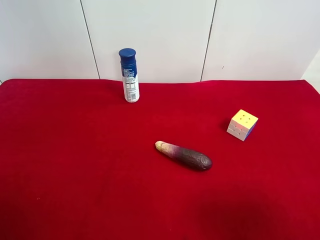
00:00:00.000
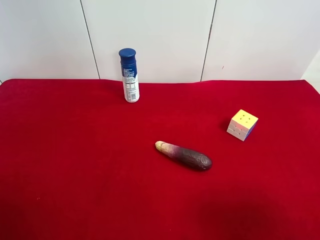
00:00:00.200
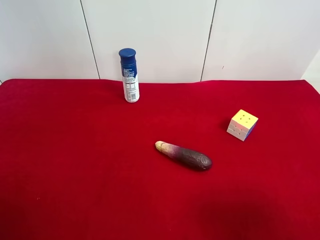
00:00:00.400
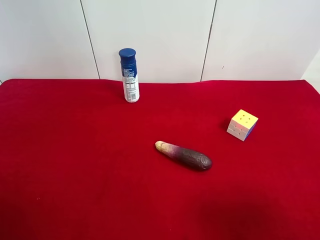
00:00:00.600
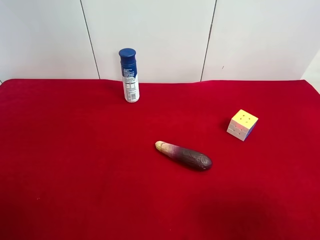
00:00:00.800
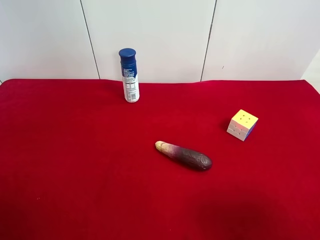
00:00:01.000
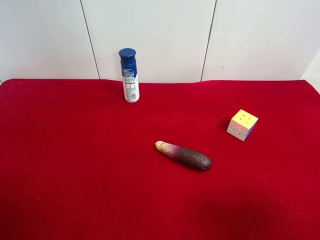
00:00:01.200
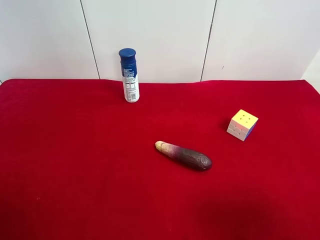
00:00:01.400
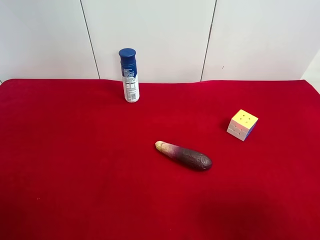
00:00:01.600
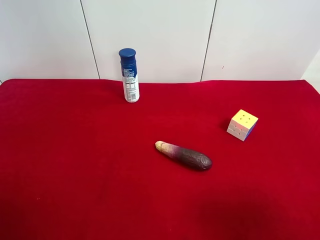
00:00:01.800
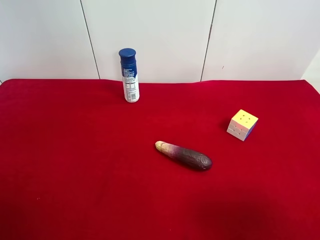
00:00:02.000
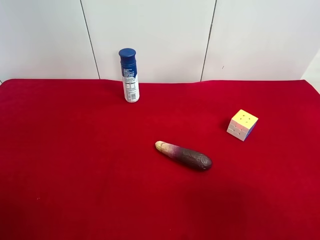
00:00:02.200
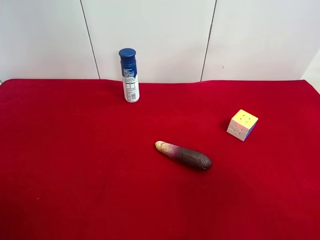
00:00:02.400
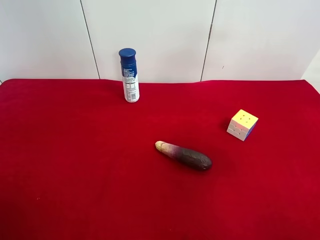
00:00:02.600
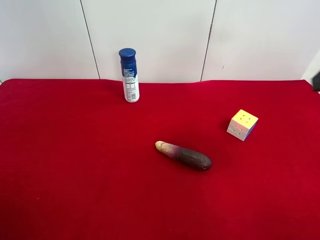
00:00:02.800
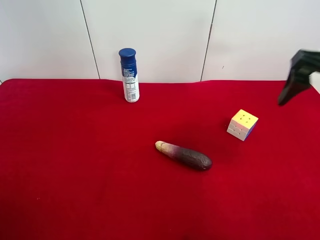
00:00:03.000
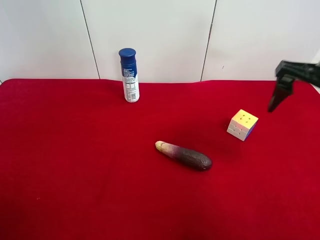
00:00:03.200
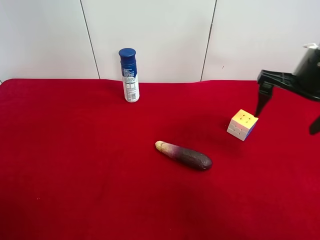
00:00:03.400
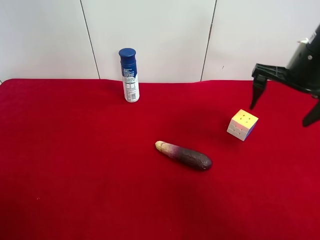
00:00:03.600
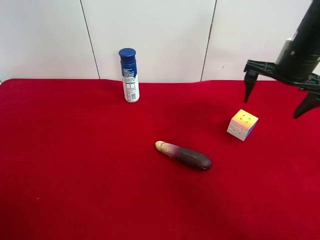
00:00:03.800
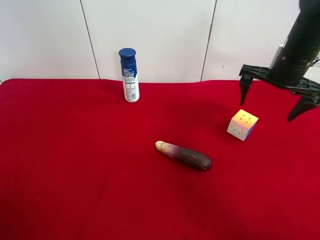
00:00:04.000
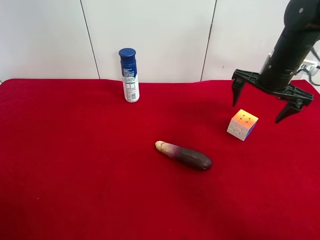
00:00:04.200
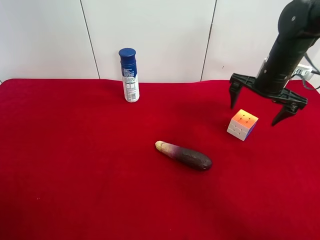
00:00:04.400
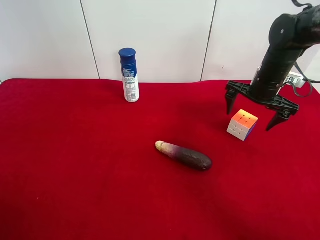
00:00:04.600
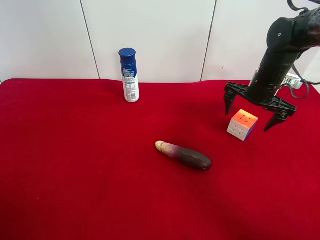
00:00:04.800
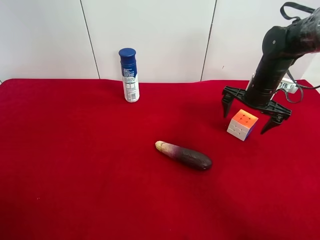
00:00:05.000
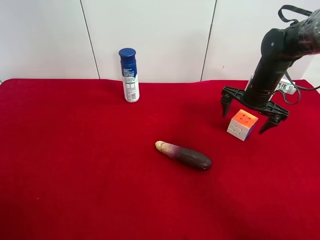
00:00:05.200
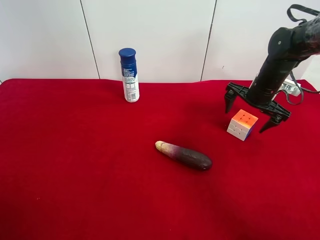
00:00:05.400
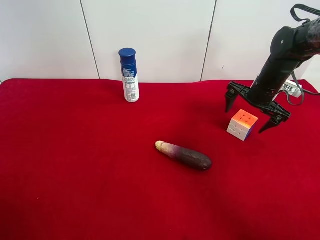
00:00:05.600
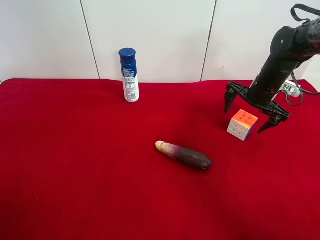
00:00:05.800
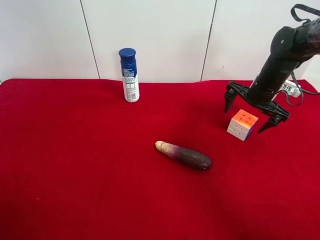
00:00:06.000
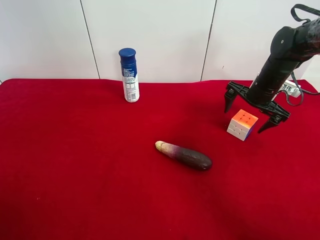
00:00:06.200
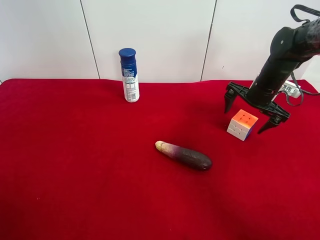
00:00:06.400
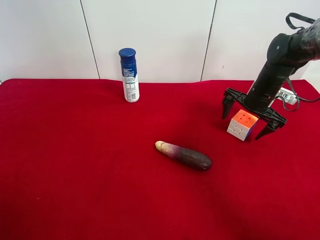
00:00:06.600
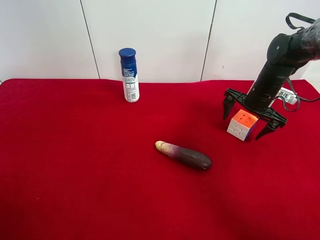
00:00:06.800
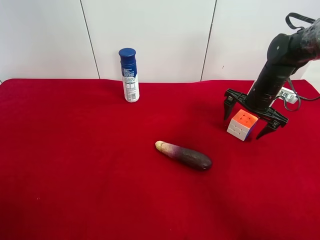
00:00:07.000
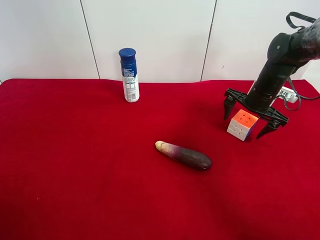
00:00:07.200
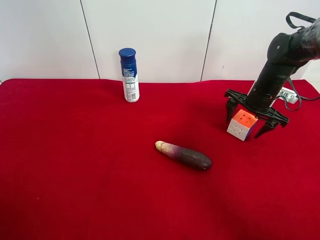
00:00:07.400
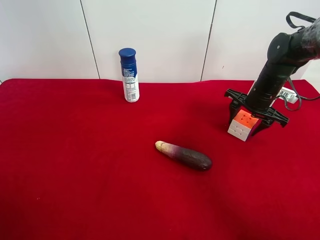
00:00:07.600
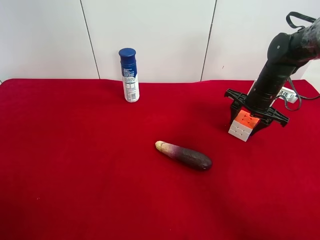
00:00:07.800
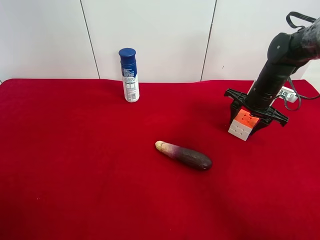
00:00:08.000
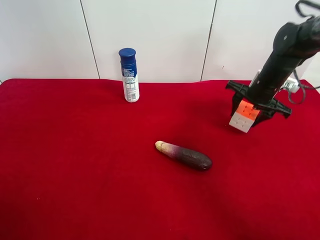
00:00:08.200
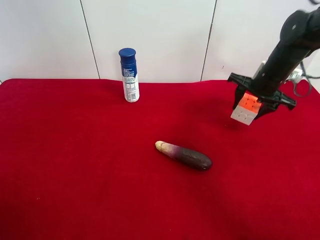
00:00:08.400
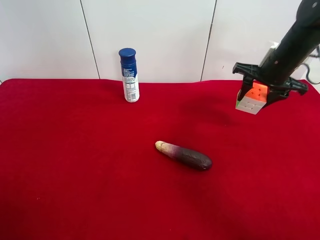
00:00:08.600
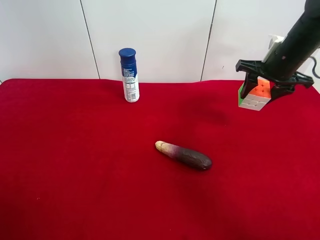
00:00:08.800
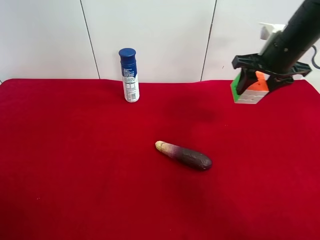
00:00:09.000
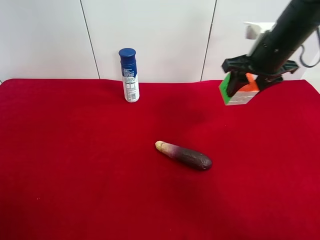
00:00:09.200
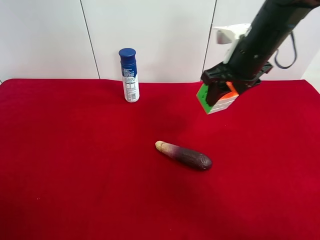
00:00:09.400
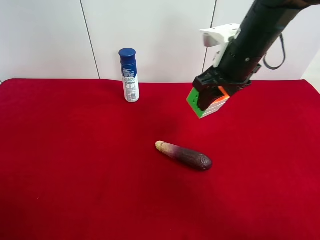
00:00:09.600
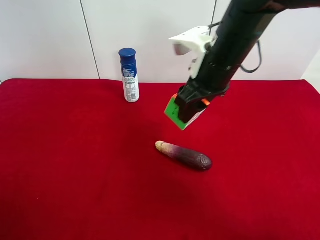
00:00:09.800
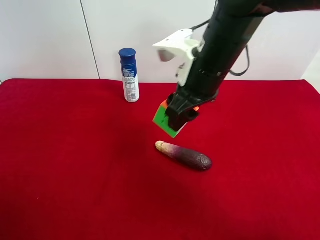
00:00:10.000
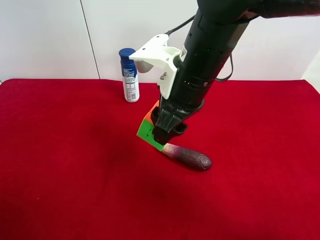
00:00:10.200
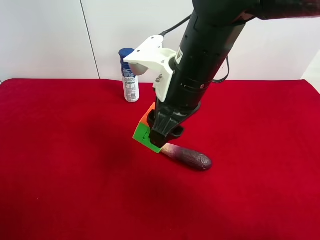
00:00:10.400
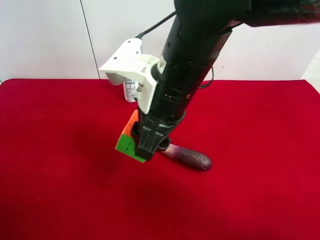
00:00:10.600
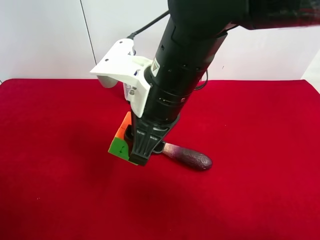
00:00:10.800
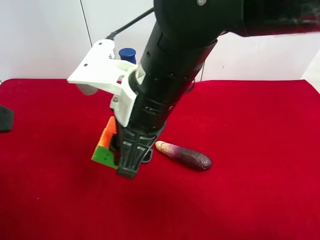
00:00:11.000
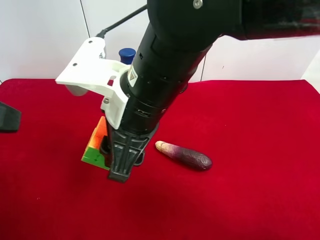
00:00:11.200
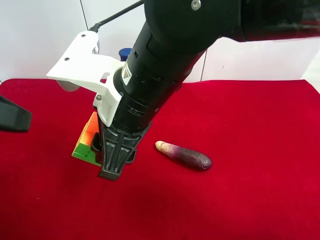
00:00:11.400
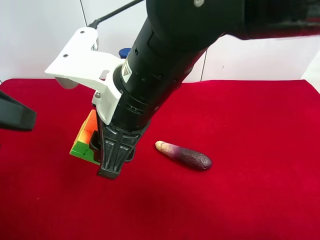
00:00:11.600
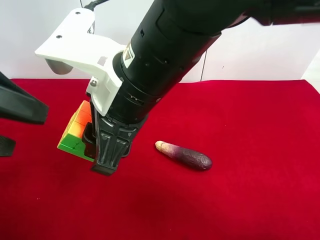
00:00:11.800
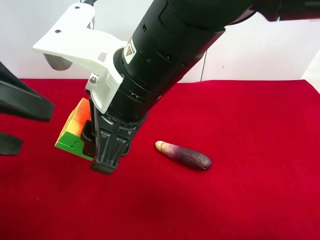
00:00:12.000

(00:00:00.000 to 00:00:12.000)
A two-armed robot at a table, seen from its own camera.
Task of the whole recording: use the right gripper to pick up the item and transfer it from the right gripper to the left gripper.
Step, 00:00:00.000 - 00:00:07.600: Use the right gripper to grab the Rubik's Cube on the right side of the table.
00:00:00.000 - 00:00:01.600: Both grippers stay about where they are.
00:00:01.600 - 00:00:03.000: The right gripper heads forward, covering about 20 cm.
00:00:03.000 - 00:00:04.400: The right gripper is displaced forward and downward by some 20 cm.
00:00:04.400 - 00:00:06.000: The right gripper ends up some 5 cm from where it was.
00:00:06.000 - 00:00:07.600: The right gripper closes its fingers.
00:00:07.600 - 00:00:09.000: The right gripper shifts approximately 15 cm upward.
00:00:09.000 - 00:00:10.400: The left gripper shifts some 5 cm upward. Meanwhile the right gripper moves to the left and backward, approximately 25 cm.
00:00:10.400 - 00:00:12.000: The right gripper goes approximately 10 cm backward and to the left; the left gripper goes some 10 cm forward.

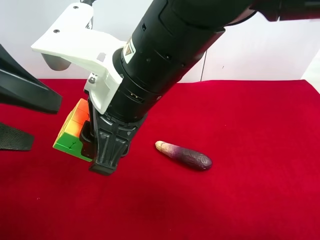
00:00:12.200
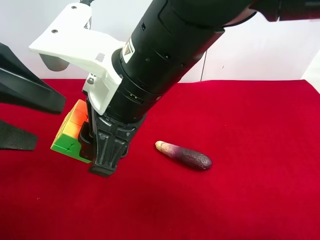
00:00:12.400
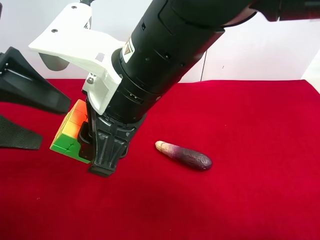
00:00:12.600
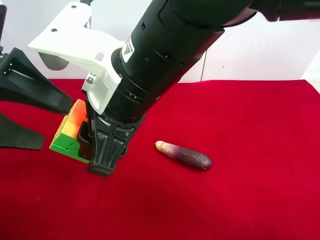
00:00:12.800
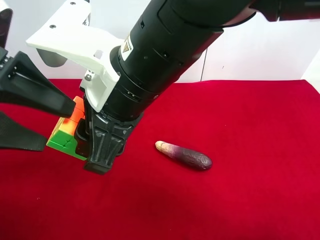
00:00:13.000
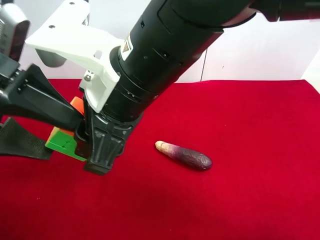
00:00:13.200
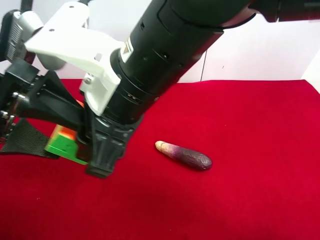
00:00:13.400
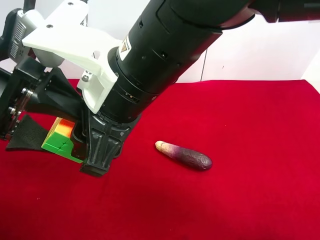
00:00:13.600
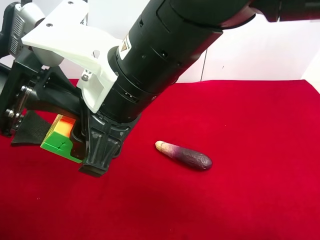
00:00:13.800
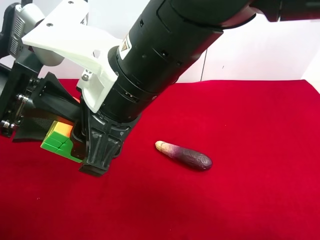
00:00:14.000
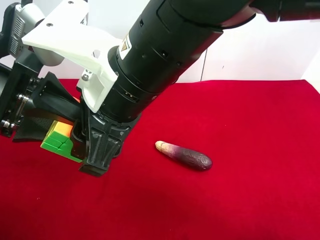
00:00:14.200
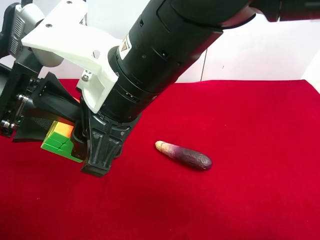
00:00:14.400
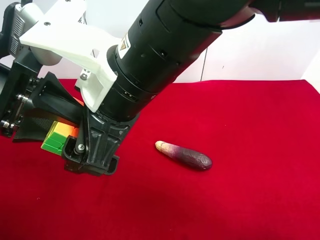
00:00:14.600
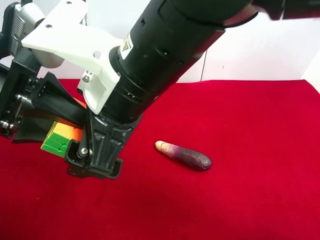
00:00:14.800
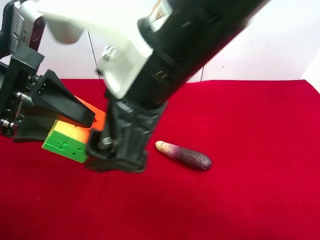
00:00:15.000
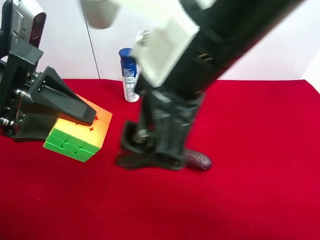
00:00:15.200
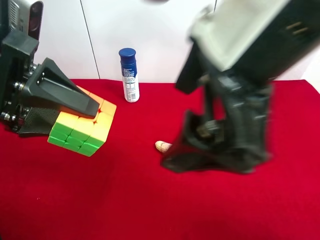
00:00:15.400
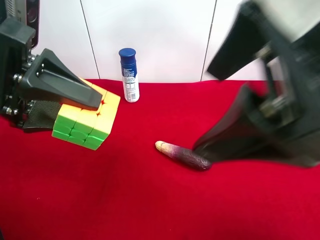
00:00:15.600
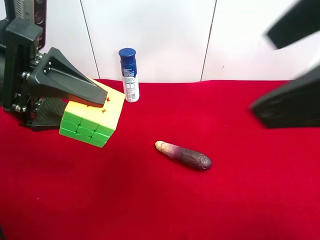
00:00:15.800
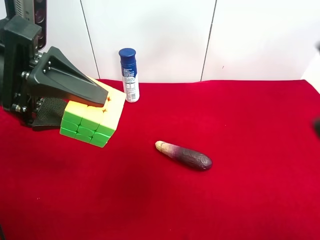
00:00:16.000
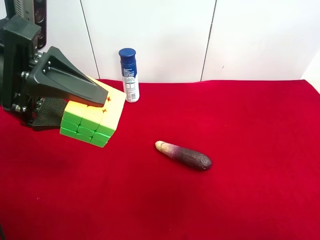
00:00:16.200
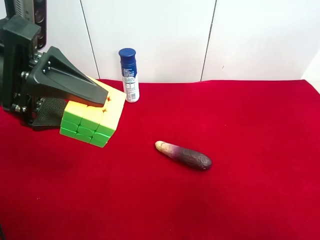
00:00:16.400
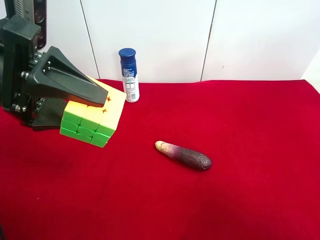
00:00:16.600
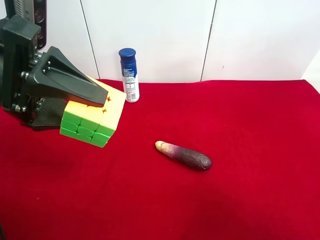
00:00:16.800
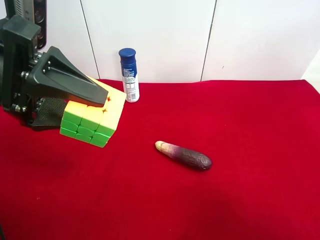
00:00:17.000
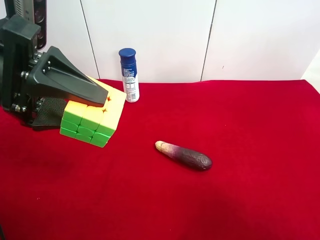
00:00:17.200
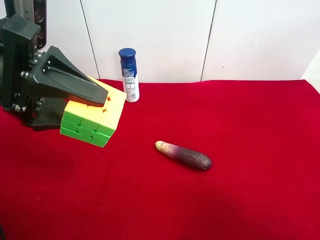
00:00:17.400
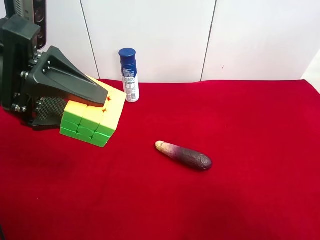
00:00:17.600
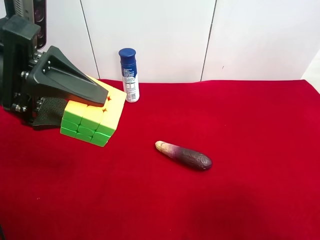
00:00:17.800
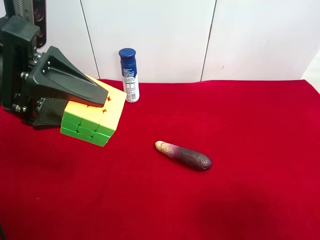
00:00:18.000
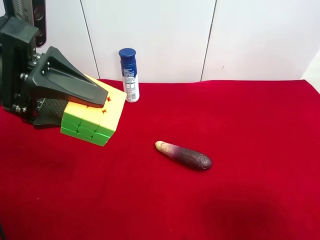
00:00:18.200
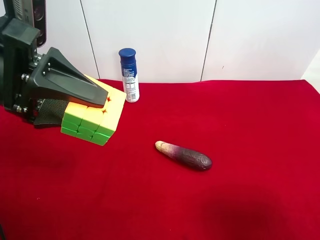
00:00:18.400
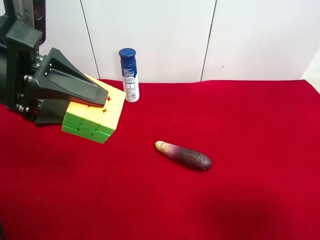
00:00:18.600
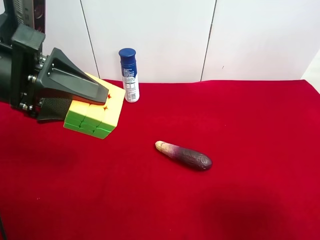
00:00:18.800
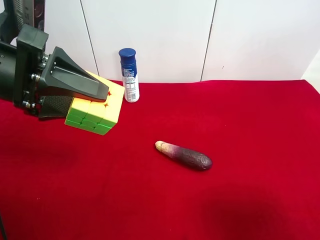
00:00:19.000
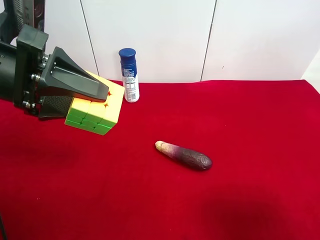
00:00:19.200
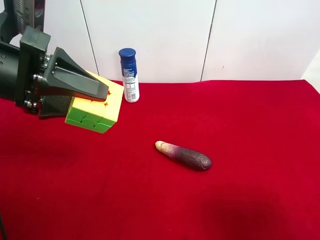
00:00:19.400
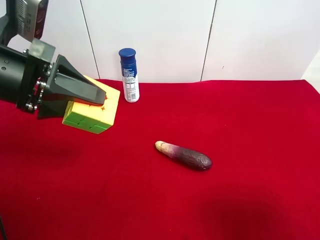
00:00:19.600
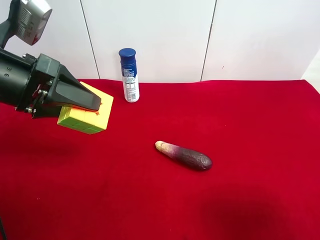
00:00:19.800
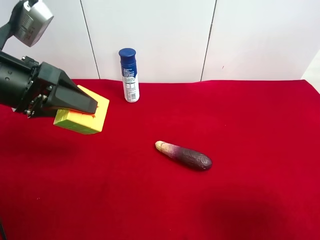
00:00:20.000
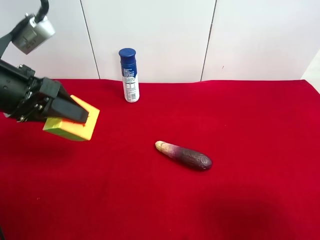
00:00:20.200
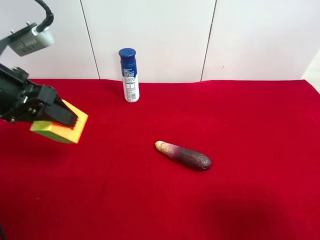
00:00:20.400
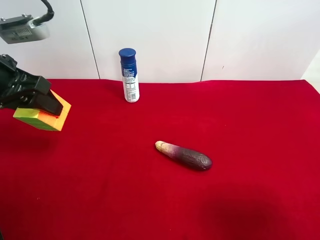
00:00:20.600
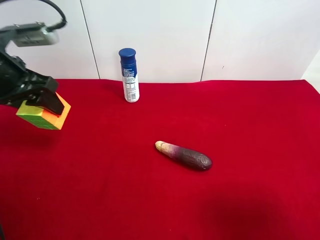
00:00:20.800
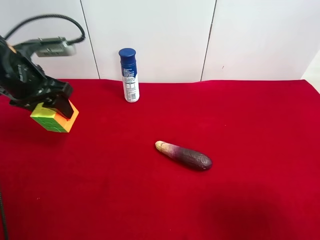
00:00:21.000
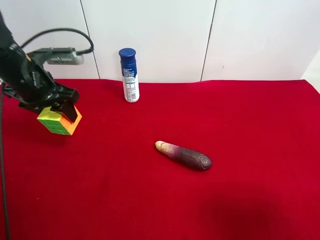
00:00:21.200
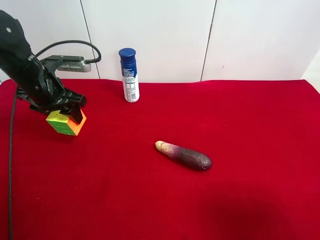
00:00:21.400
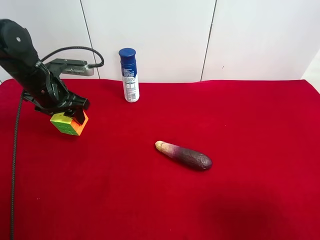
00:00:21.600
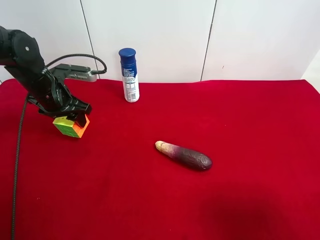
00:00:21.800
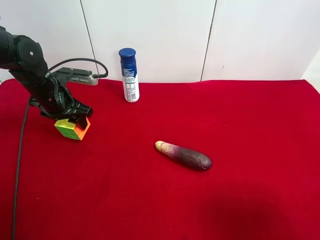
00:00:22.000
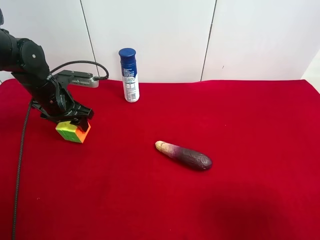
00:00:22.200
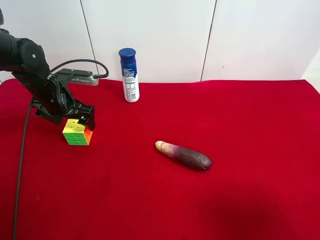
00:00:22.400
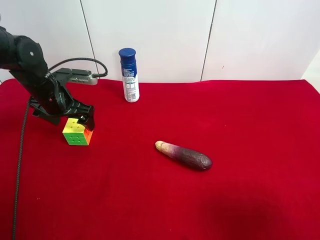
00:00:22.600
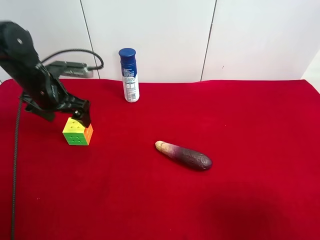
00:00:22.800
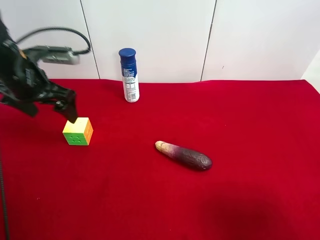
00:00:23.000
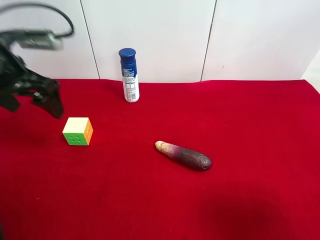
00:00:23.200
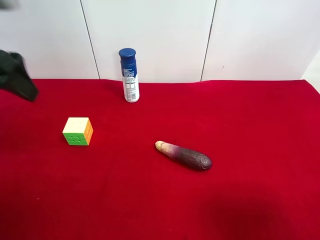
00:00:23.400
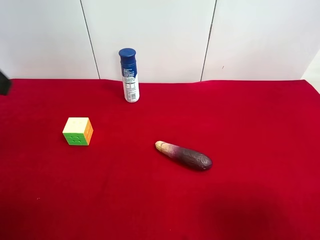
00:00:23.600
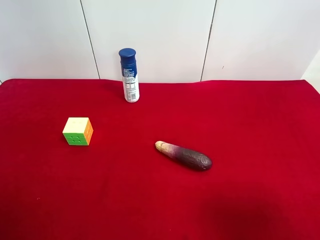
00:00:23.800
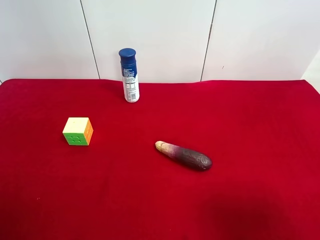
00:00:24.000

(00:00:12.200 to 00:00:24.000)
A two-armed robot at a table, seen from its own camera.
Task of the whole recording: use the right gripper to pick up the item and transfer it from the right gripper to the left gripper.
Step, 00:00:12.200 - 00:00:14.600: Pass the Rubik's Cube to the left gripper.
Step, 00:00:14.800 - 00:00:22.400: The left gripper places Rubik's Cube on the left side of the table.
00:00:12.200 - 00:00:13.600: The left gripper shifts by approximately 5 cm.
00:00:13.600 - 00:00:15.200: The right gripper travels to the right and upward by approximately 10 cm, and opens its fingers; the left gripper closes.
00:00:15.200 - 00:00:16.600: The right gripper goes about 30 cm to the right and backward.
00:00:18.200 - 00:00:19.600: There are only small adjustments of the grippers.
00:00:19.600 - 00:00:21.000: The left gripper moves forward, some 10 cm.
00:00:21.000 - 00:00:22.600: The left gripper goes some 10 cm downward, and opens its fingers.
00:00:22.600 - 00:00:24.000: The left gripper moves backward and upward, about 35 cm.
